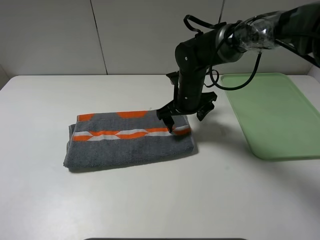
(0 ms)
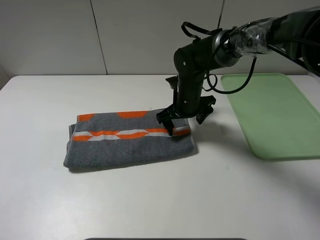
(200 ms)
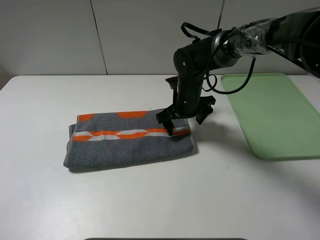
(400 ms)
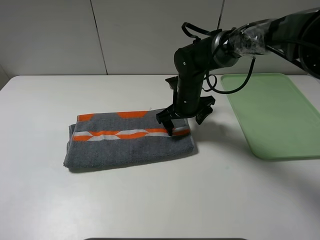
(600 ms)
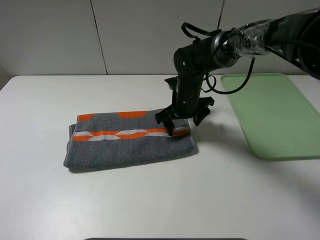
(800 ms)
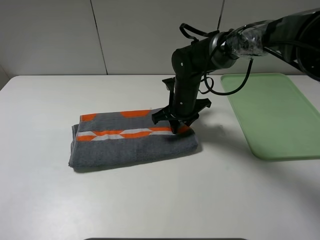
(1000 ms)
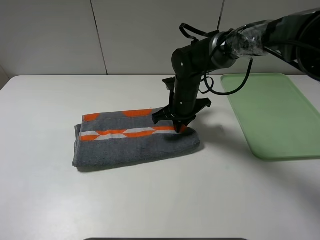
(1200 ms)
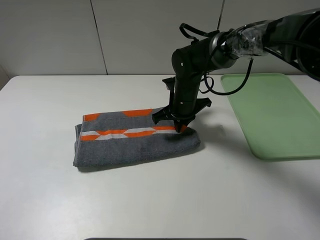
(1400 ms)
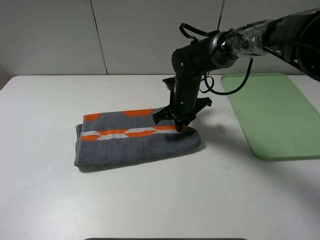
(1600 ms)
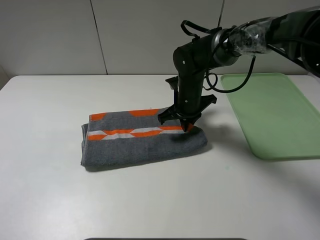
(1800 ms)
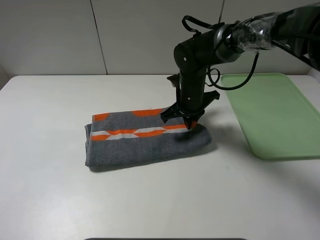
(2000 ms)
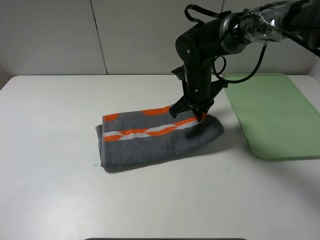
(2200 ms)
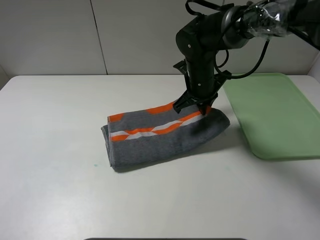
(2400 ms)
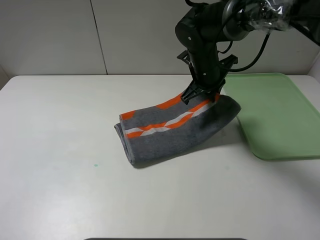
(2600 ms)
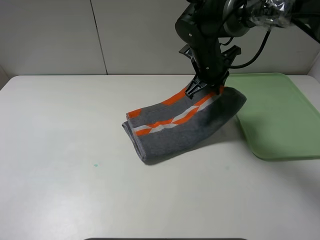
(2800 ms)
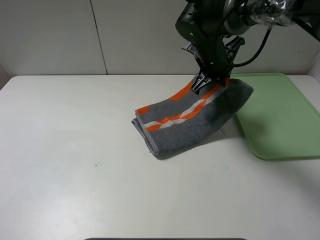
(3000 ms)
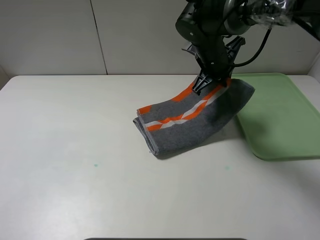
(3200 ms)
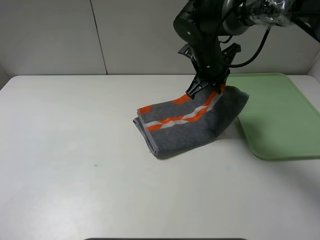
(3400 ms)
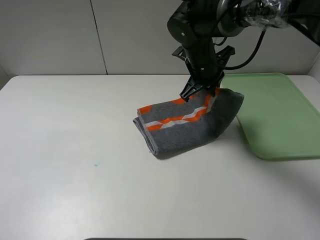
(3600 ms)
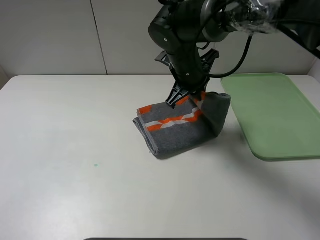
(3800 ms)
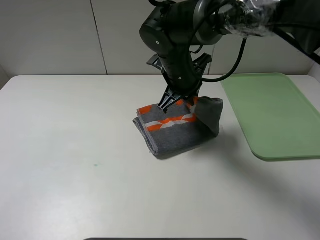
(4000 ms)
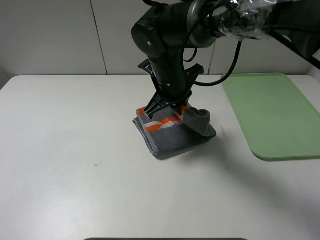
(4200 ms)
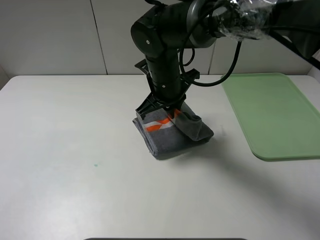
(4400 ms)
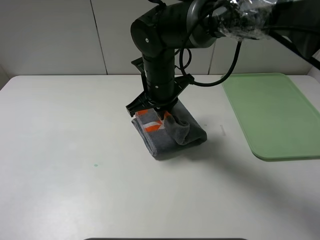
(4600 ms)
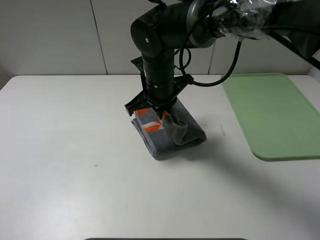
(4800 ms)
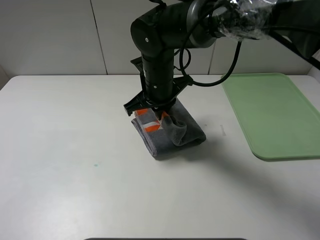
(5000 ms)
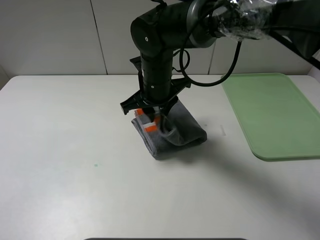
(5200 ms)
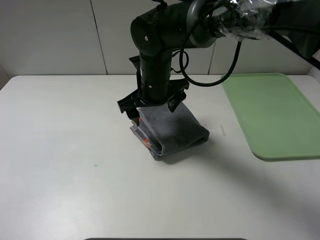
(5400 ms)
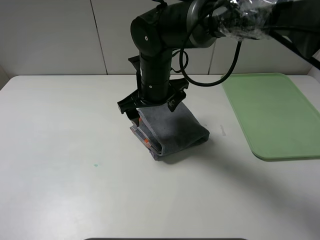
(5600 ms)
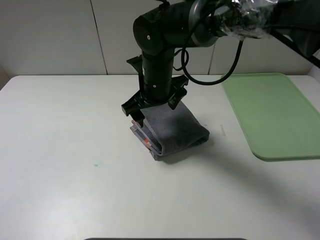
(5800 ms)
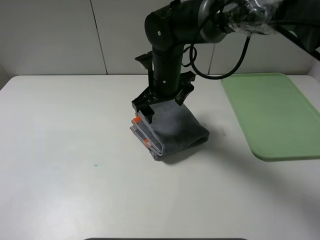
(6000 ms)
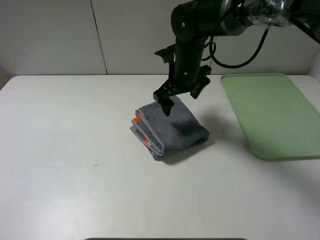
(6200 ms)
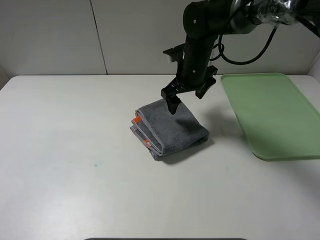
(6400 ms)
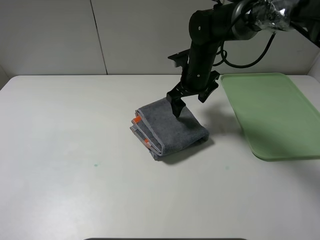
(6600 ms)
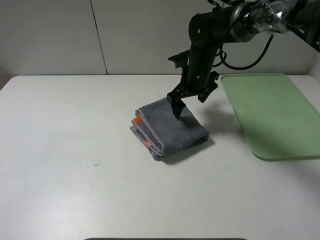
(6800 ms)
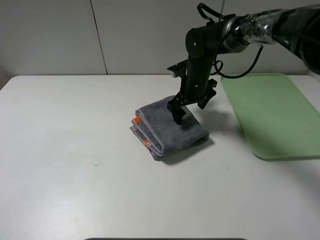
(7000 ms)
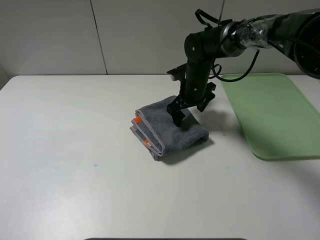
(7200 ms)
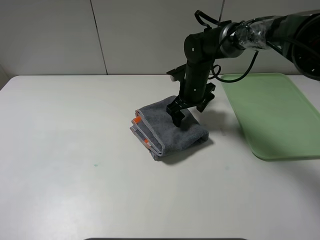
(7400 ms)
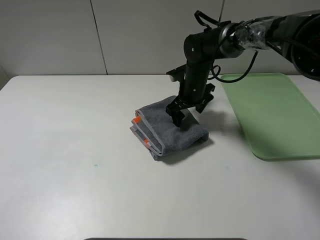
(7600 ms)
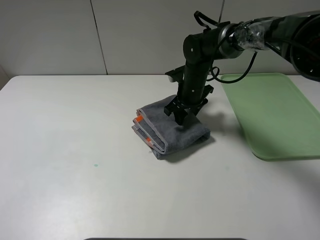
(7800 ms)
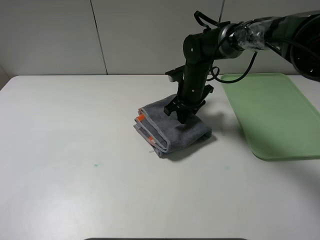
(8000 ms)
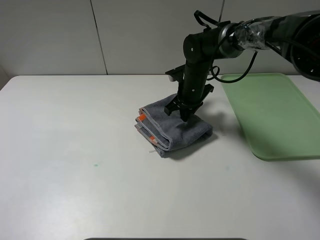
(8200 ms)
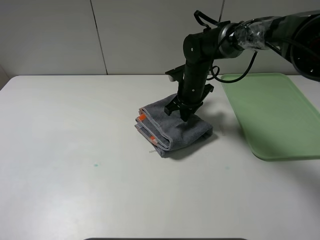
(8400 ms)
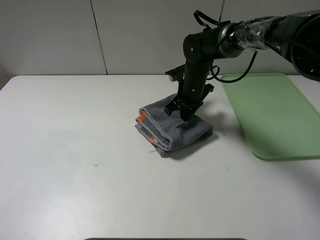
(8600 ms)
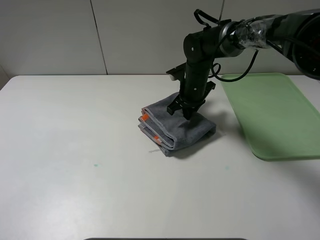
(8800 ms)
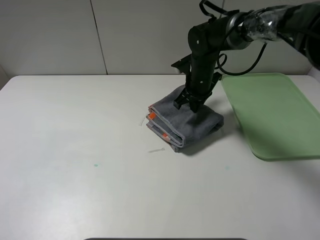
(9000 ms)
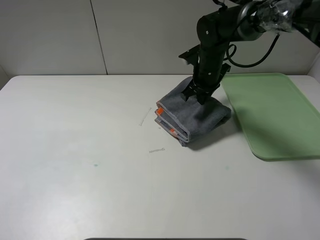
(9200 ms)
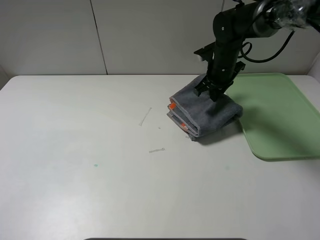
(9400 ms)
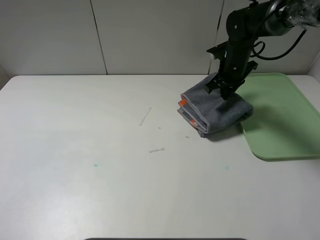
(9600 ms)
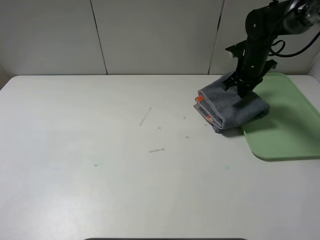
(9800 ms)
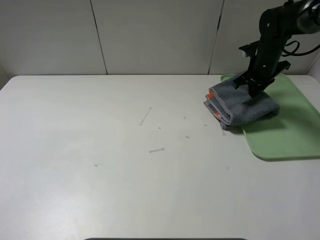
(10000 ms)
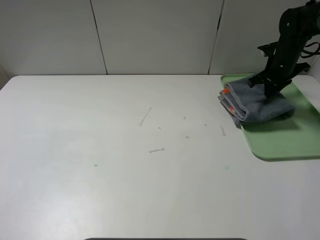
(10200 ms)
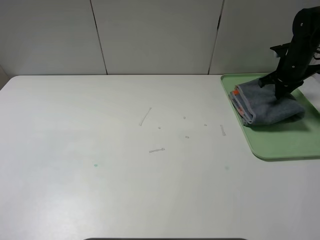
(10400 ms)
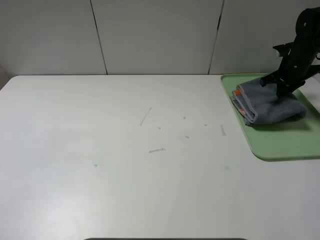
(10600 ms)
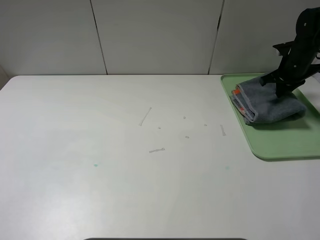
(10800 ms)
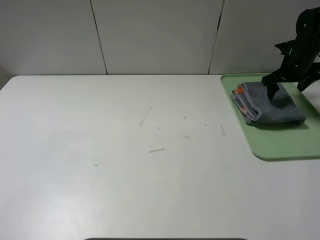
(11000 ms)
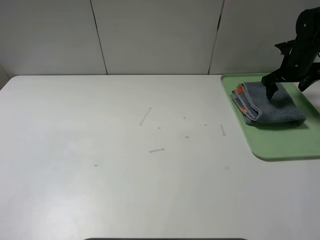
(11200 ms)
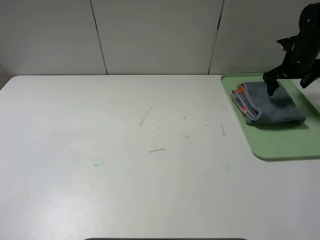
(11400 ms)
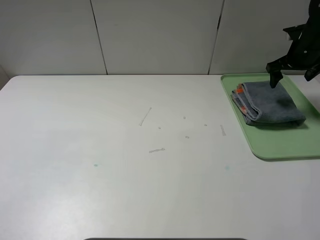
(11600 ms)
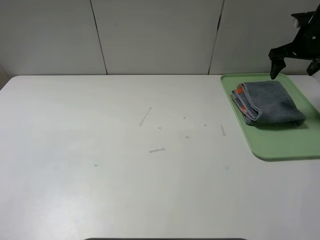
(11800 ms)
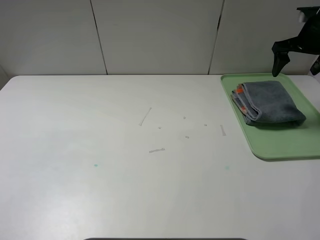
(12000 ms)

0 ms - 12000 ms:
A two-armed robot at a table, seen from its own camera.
Step, 0 ms - 5200 ms: Fold the grey towel from right to left with right gripper.
Step, 5400 ms - 11000 ms: Place the folded grey towel on the tray with the right gripper.
0 ms - 1600 ms: The right gripper closes its fingers.
1600 ms - 3000 ms: The right gripper heads upward, covering roughly 10 cm.
3000 ms - 4400 ms: The right gripper goes about 15 cm to the left and backward.
4400 ms - 6000 ms: The right gripper opens its fingers.
6000 ms - 7600 ms: The right gripper travels downward, to the right and forward by about 10 cm.
7600 ms - 9000 ms: The right gripper closes.
9000 ms - 10400 ms: The right gripper shifts roughly 25 cm to the right.
10400 ms - 12000 ms: The right gripper goes some 10 cm upward, and opens up.

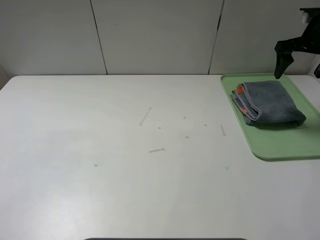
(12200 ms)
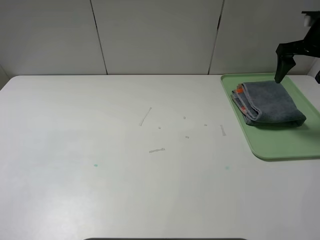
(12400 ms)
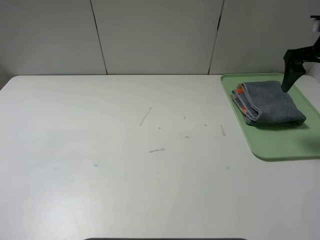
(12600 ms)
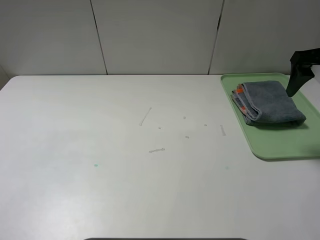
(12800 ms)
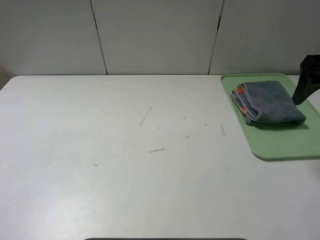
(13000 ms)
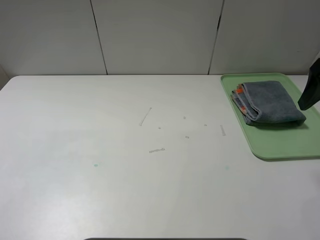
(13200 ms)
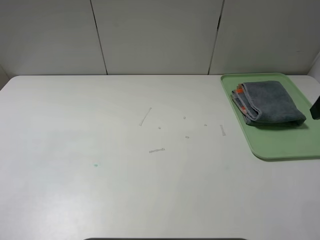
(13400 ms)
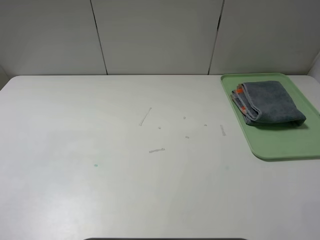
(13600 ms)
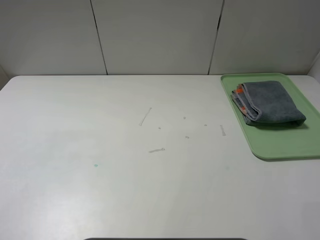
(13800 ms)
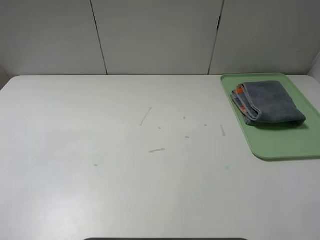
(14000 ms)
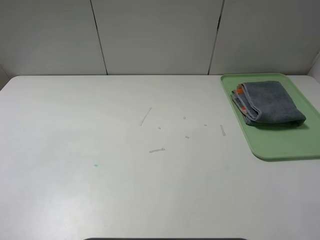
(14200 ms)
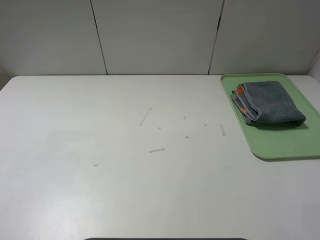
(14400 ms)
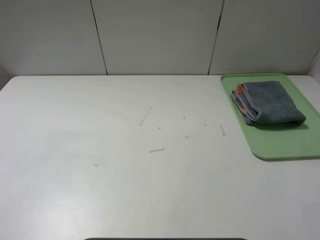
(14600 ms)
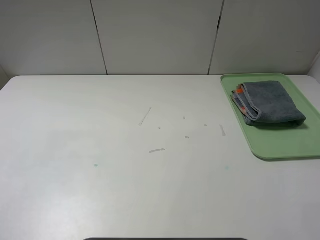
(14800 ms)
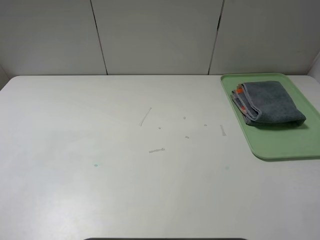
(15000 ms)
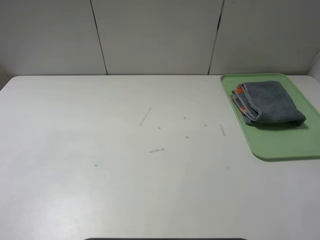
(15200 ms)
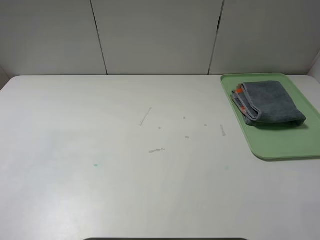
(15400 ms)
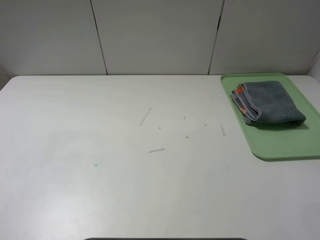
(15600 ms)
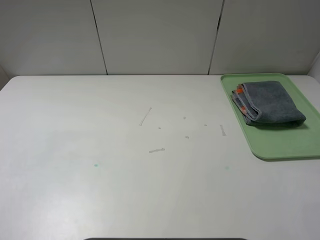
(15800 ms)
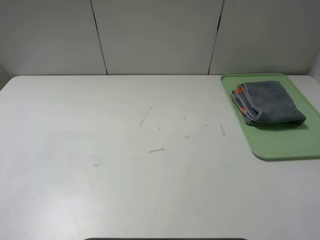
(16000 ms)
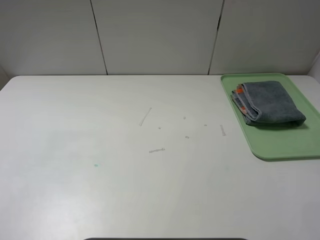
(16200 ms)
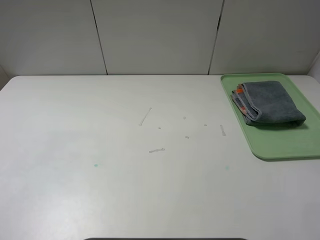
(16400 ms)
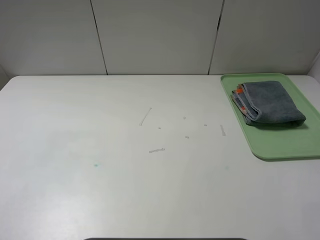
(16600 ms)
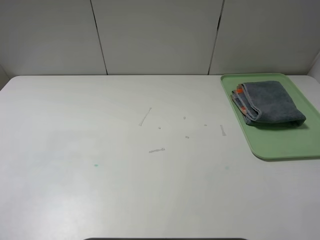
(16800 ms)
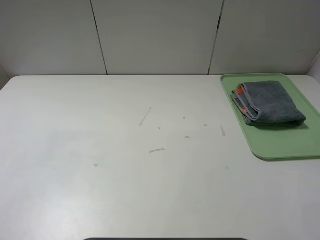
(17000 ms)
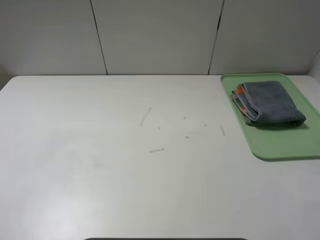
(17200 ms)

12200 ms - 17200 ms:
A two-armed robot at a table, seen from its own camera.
12200 ms - 13800 ms: The right gripper goes some 30 cm backward.
15600 ms - 17200 ms: The two grippers keep their place.

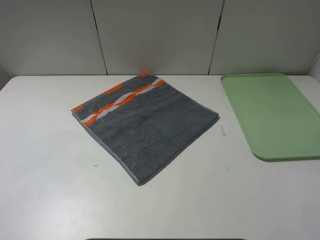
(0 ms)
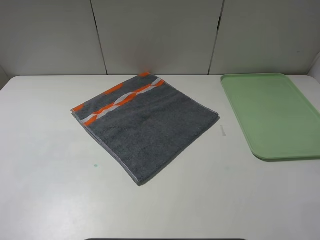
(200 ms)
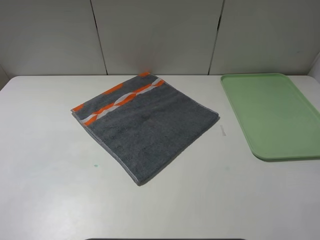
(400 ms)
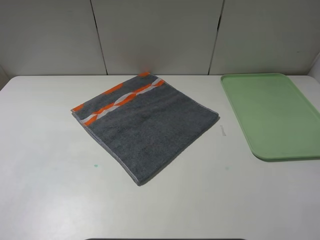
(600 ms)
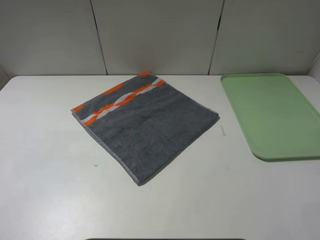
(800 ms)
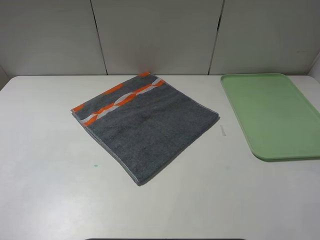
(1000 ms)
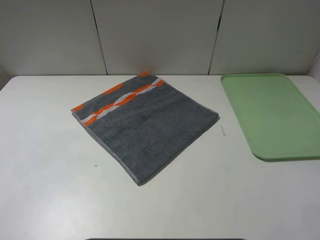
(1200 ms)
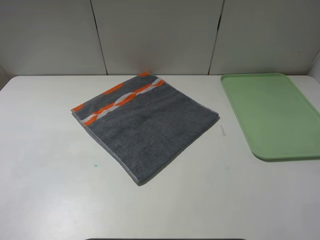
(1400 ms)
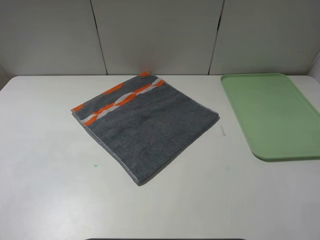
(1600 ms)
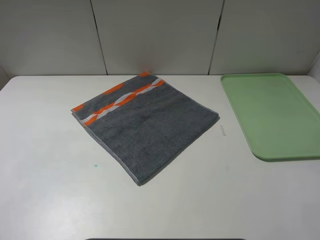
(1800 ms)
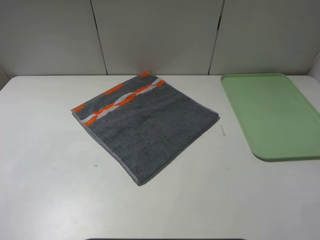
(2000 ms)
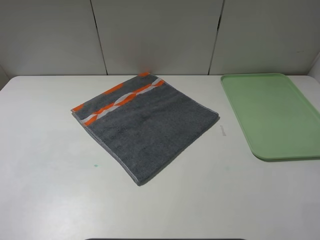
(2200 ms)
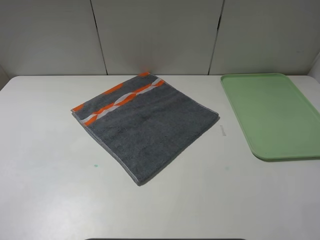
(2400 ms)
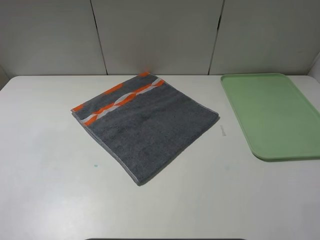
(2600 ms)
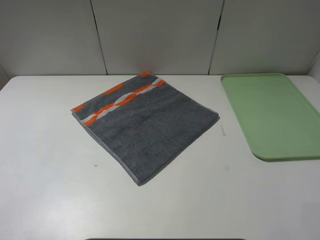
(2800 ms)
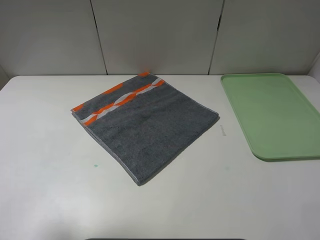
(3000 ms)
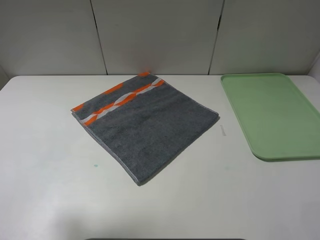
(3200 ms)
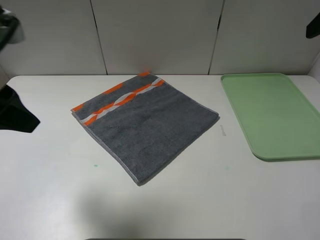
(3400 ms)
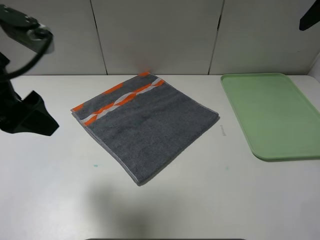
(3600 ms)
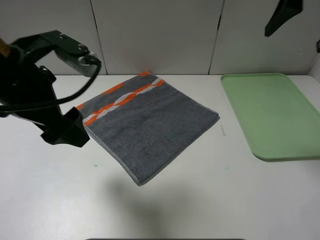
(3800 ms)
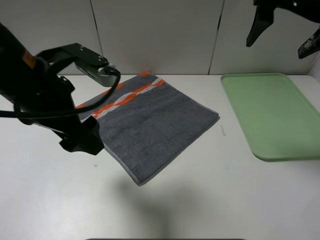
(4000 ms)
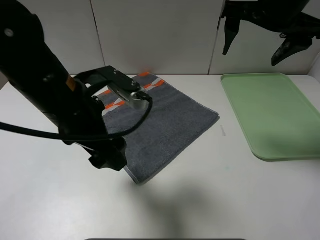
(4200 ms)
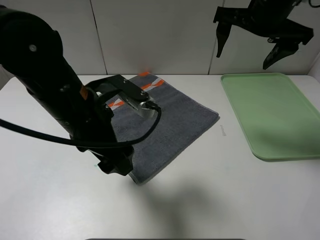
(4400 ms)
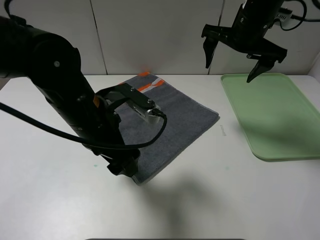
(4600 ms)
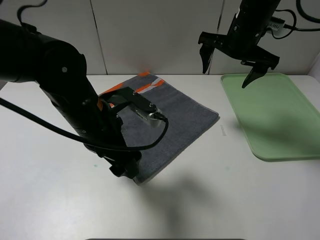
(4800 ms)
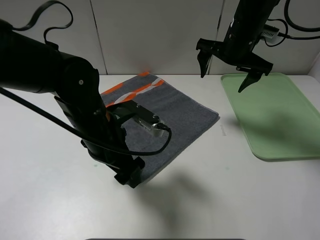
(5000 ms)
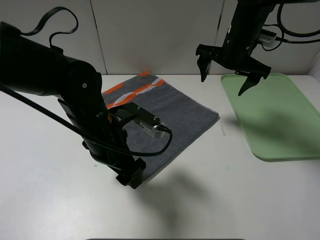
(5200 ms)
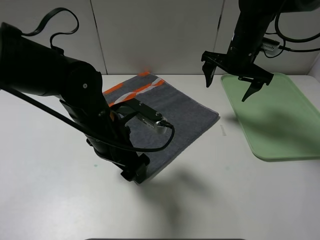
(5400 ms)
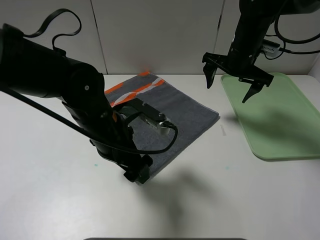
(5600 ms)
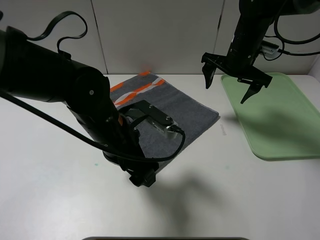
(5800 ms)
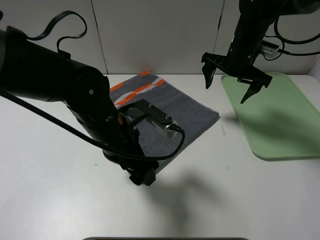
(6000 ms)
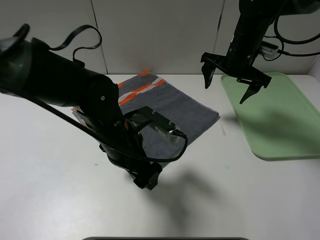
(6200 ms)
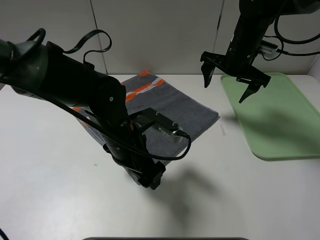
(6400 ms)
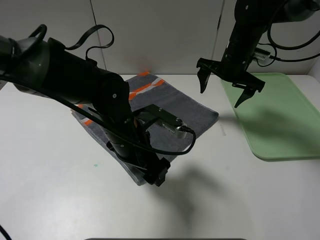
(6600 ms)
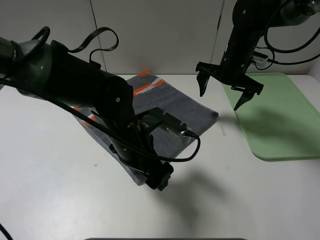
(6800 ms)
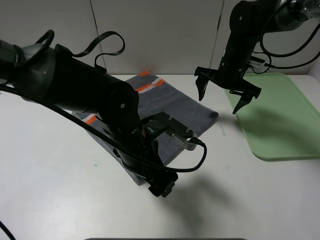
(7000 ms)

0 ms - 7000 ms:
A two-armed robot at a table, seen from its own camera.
0 ms - 1400 ms: Both grippers stay about where they are.
2800 ms - 4200 ms: The right gripper heads forward and to the left, covering some 25 cm. The left gripper moves to the right, forward and downward, some 25 cm.
4200 ms - 5600 ms: The right gripper goes approximately 15 cm downward and forward; the left gripper is displaced downward by about 5 cm.
5600 ms - 7000 ms: The left gripper changes place by about 5 cm.
